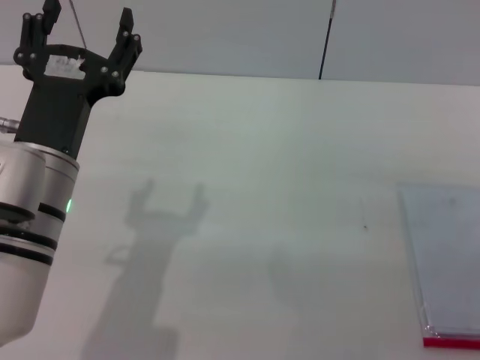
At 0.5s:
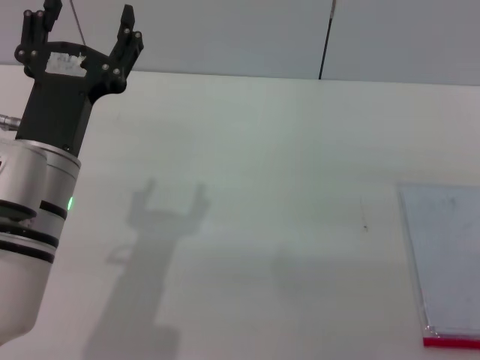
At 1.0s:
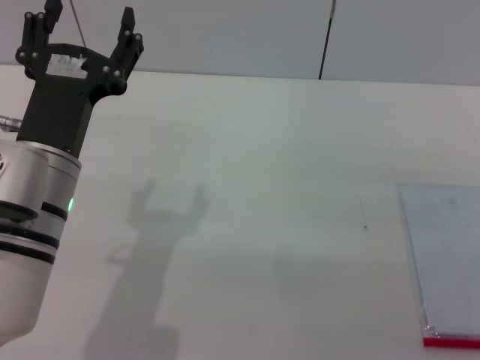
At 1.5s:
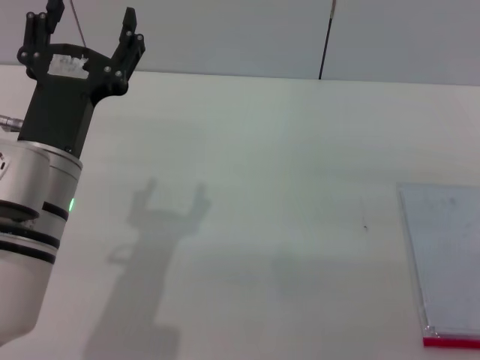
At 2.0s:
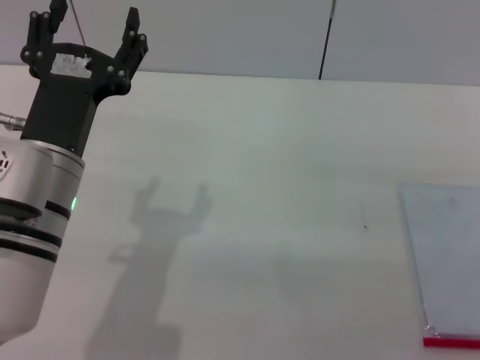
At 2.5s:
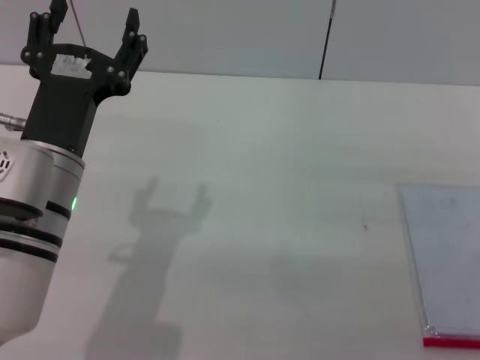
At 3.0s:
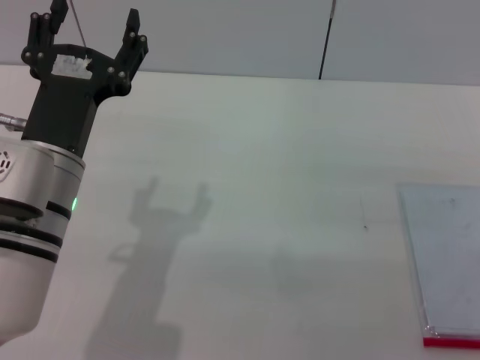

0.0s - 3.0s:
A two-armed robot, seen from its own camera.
0.0s - 3.0s: Neither gripper changes place.

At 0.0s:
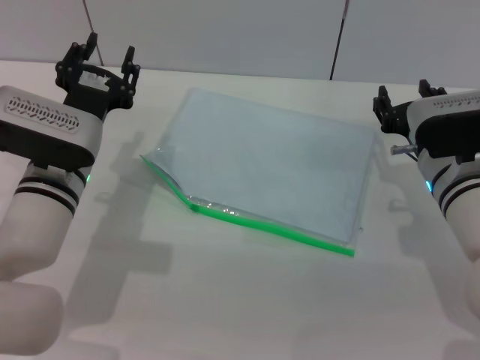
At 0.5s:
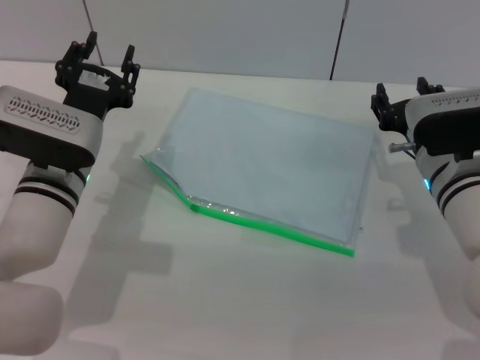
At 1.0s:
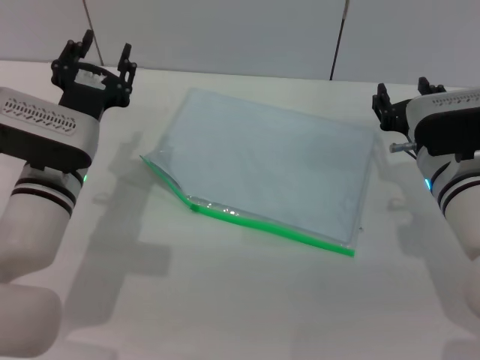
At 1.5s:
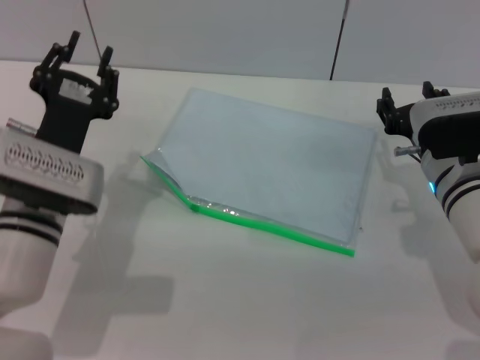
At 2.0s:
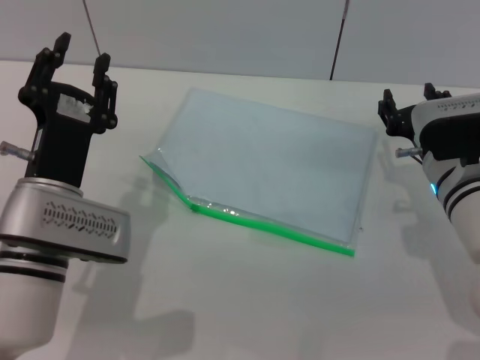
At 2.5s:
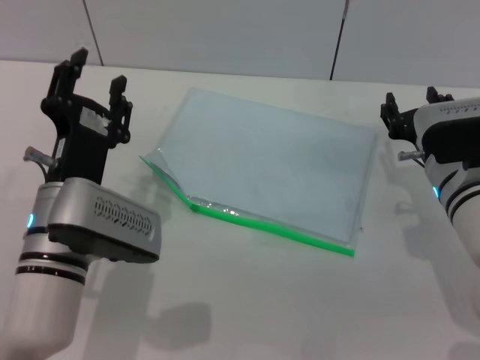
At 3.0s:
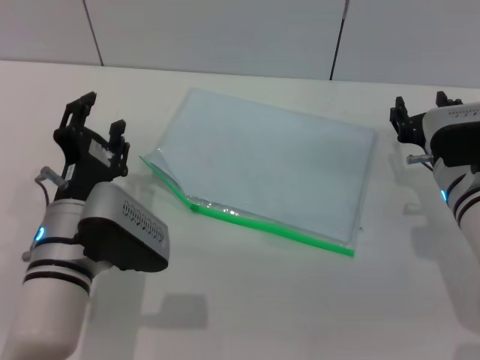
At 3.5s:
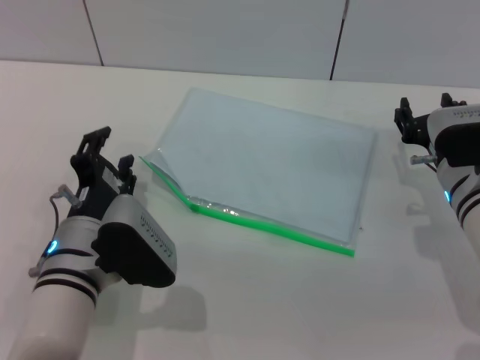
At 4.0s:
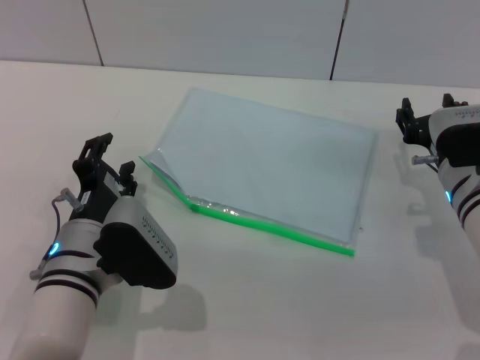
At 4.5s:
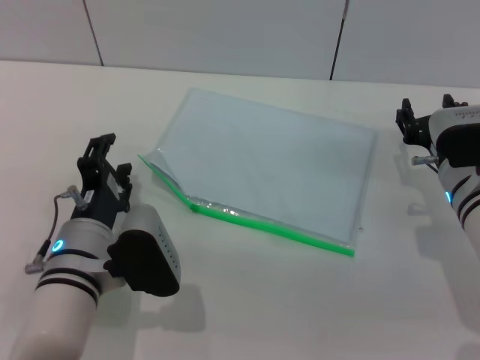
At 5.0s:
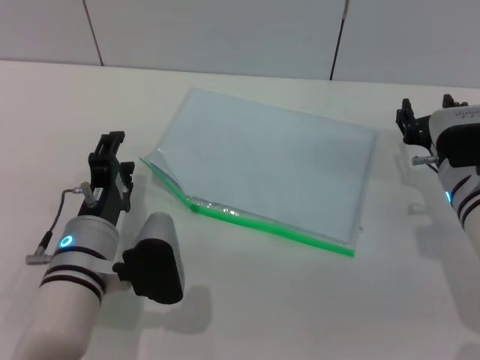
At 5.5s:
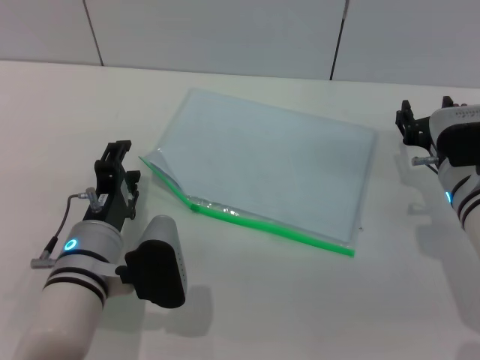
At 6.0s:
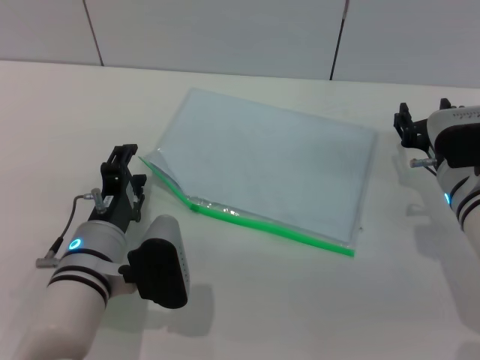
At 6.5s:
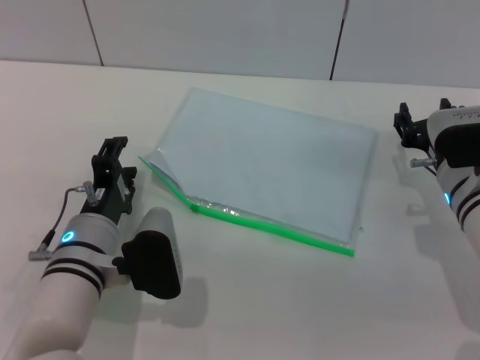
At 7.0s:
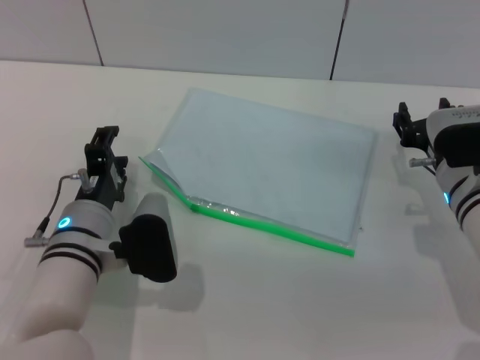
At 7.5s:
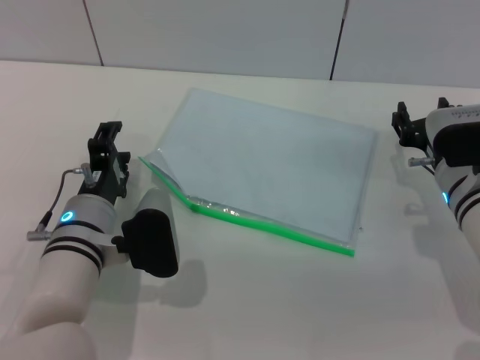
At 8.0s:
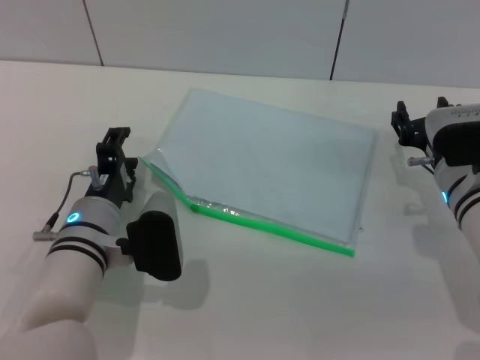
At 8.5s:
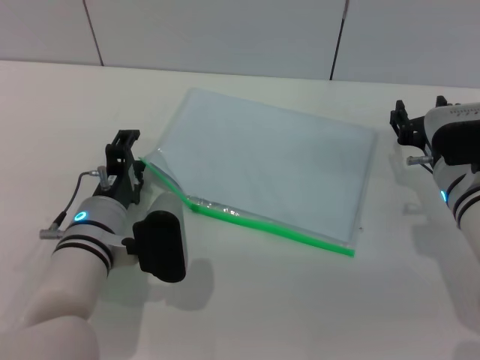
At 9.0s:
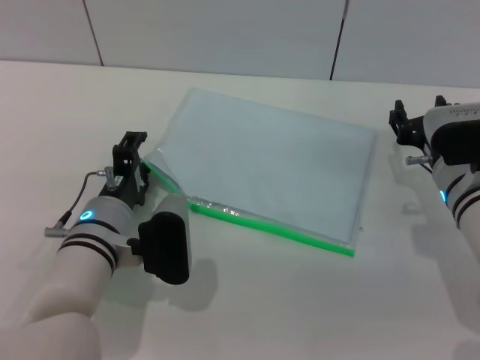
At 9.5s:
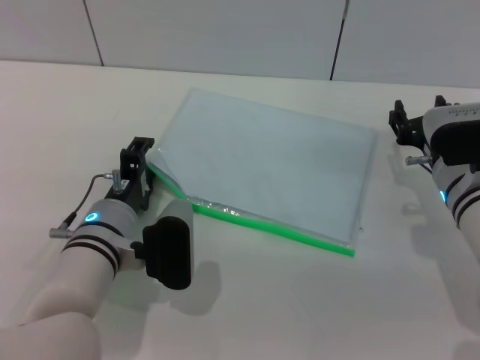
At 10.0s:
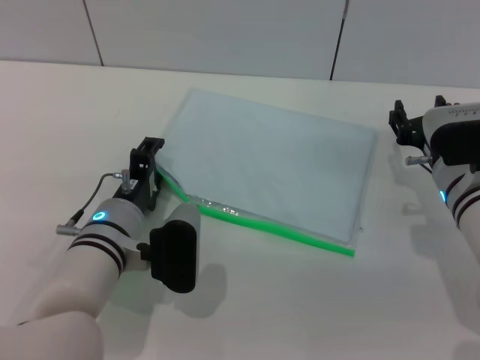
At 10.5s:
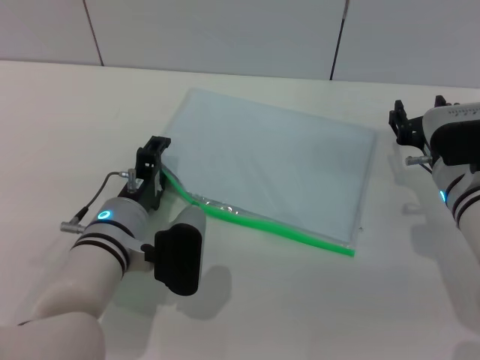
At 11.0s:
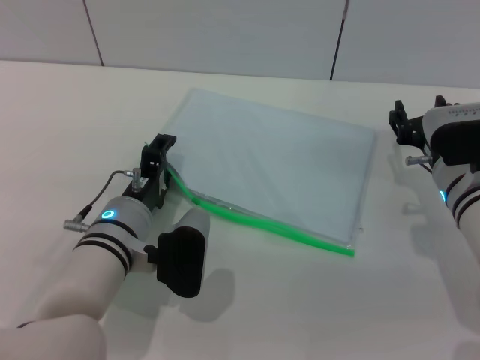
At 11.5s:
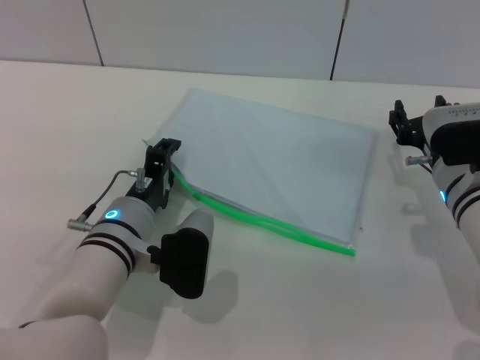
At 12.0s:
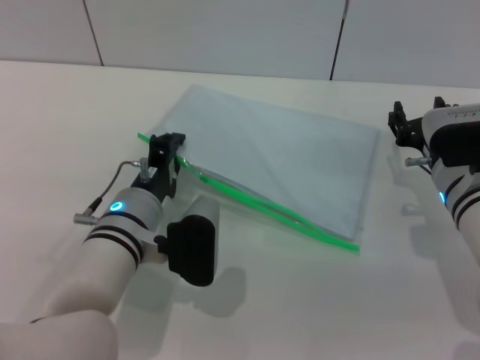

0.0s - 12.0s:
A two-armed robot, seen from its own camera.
0.0s - 2.0s: The left gripper travels backward by approximately 10 cm.
2.0s - 4.0s: The left gripper moves approximately 5 cm.
6.0s - 10.0s: The grippers move only a little.
10.0s - 12.0s: The left gripper closes its fingers.

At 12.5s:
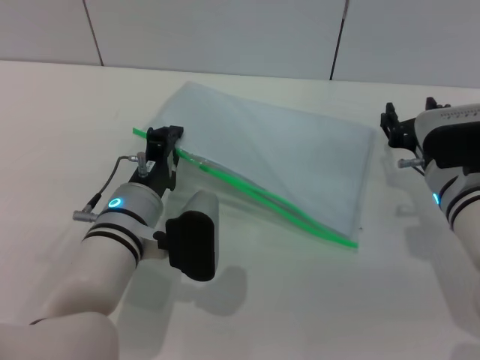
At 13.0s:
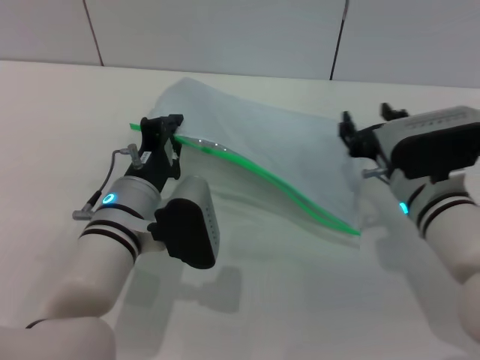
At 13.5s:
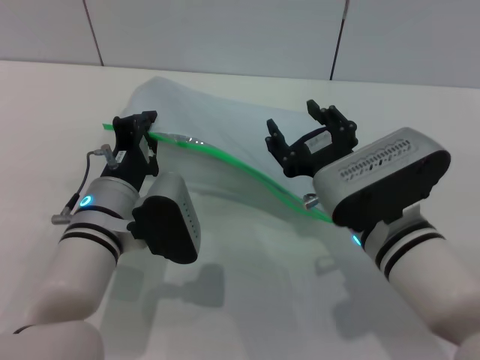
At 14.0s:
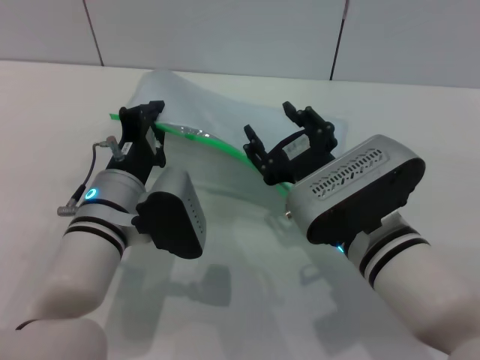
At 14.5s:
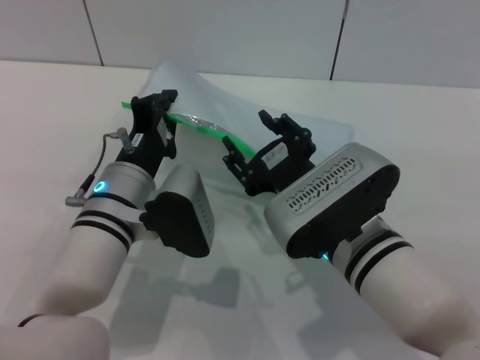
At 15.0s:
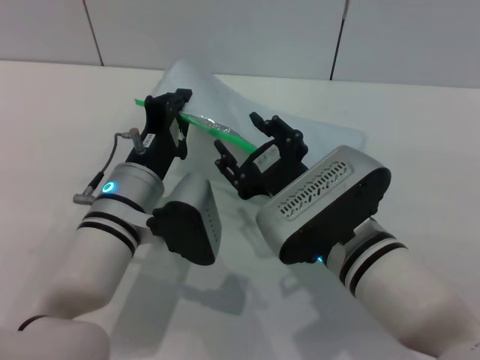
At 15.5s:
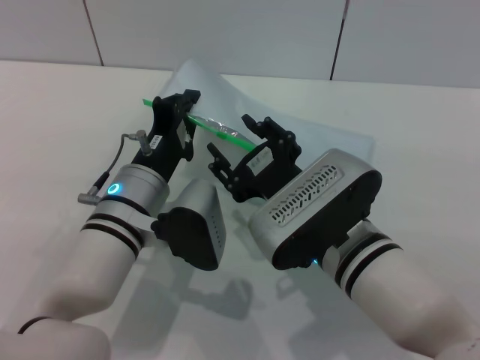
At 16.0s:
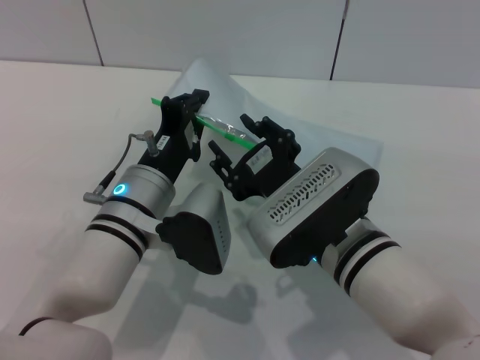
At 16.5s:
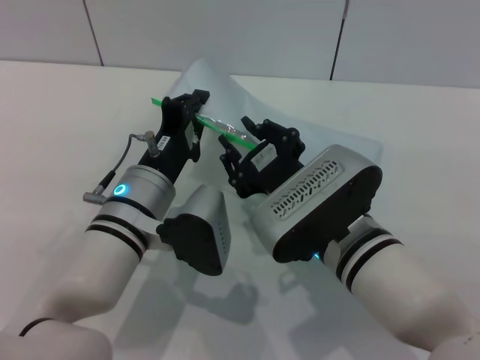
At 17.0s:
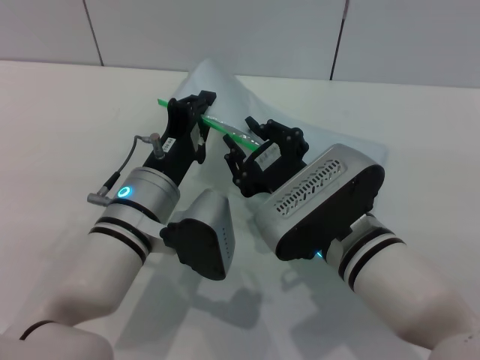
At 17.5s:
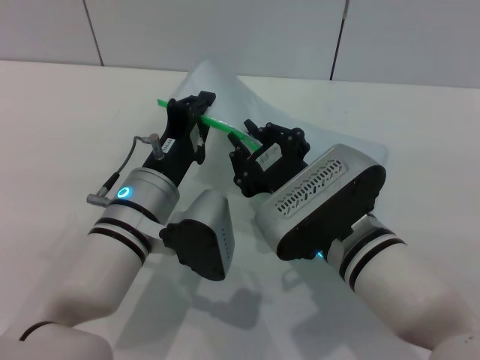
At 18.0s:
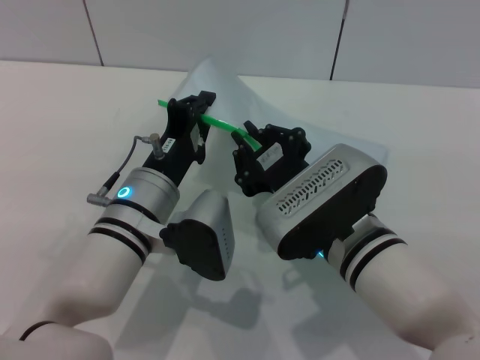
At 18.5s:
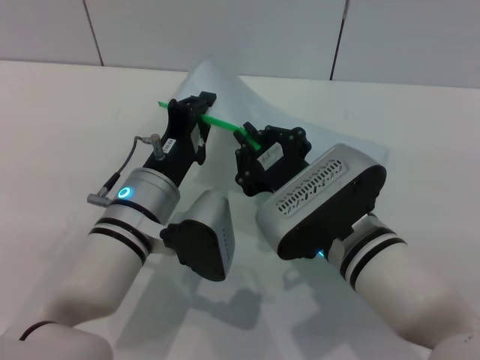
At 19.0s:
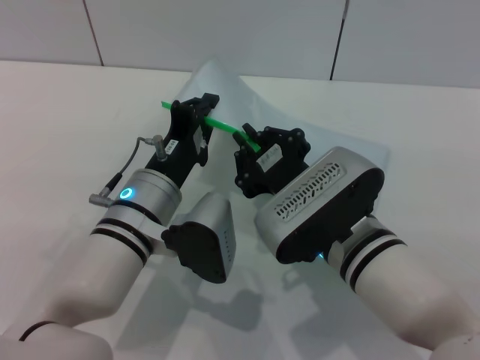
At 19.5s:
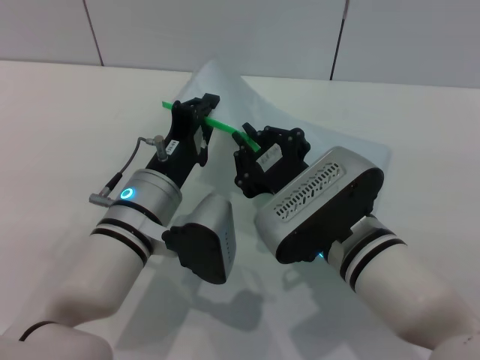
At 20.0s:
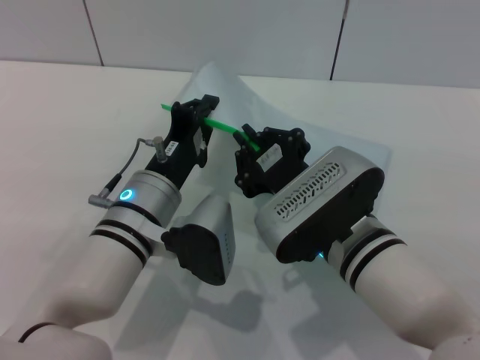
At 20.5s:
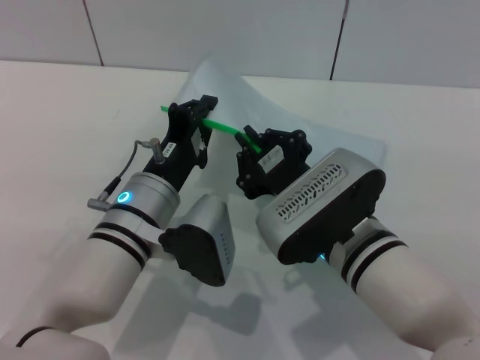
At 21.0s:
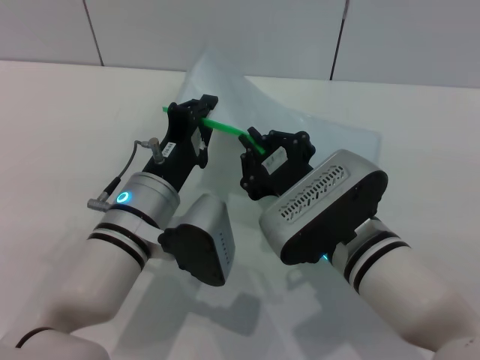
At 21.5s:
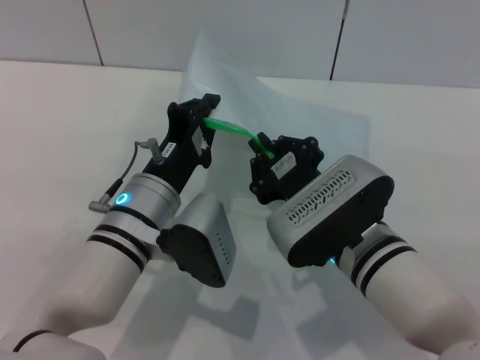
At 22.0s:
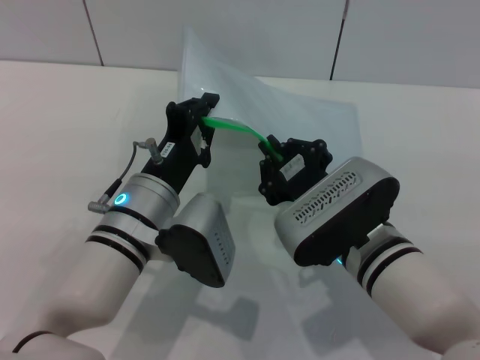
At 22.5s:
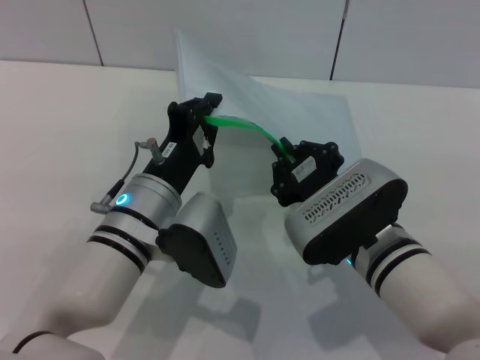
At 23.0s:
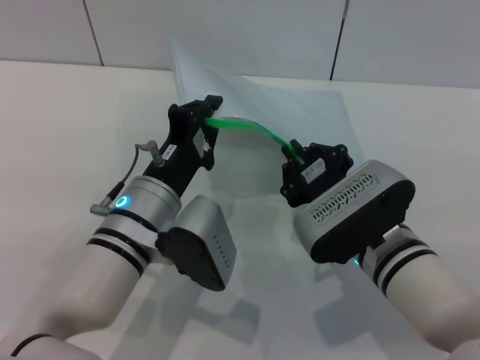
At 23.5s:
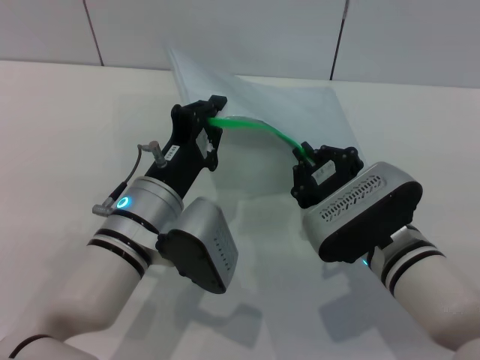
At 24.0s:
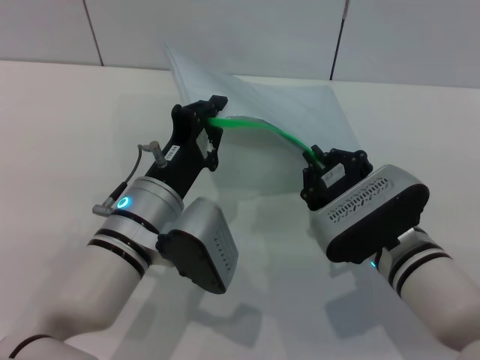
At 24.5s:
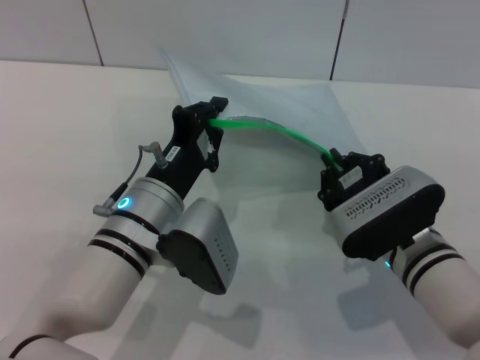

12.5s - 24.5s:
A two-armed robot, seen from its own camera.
12.5s - 14.5s: The right gripper heads to the left and backward, covering roughly 15 cm.
14.5s - 16.5s: The grippers make only small movements.
16.5s - 18.5s: The right gripper closes up.
18.5s - 20.5s: Both grippers stay about where they are.
20.5s - 22.5s: There are only small adjustments of the grippers.
22.5s - 24.5s: The right gripper shifts by approximately 5 cm.
